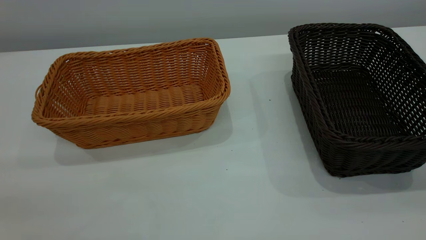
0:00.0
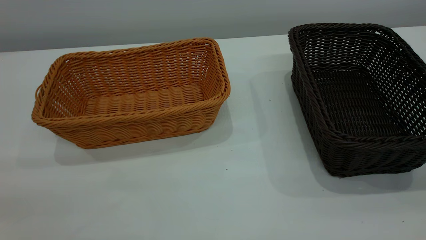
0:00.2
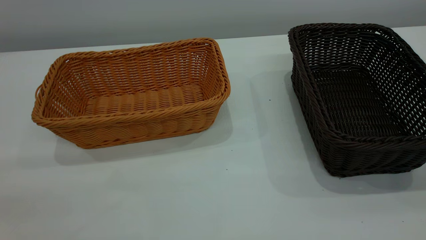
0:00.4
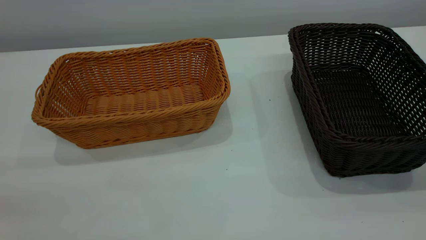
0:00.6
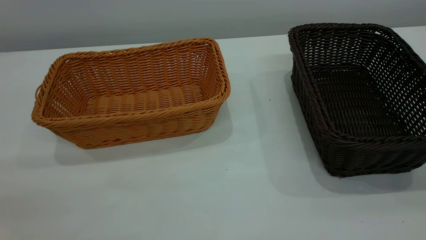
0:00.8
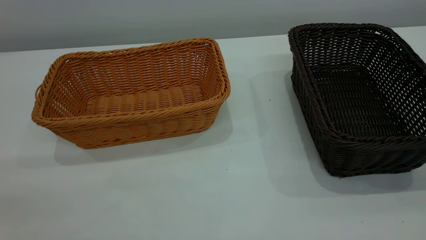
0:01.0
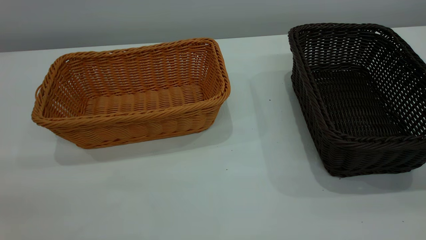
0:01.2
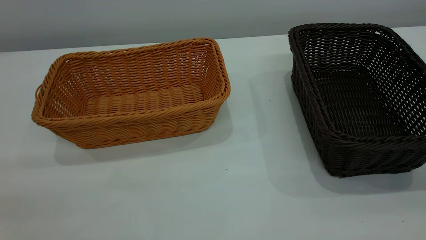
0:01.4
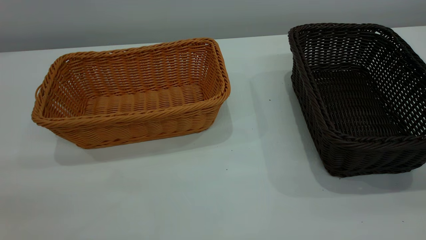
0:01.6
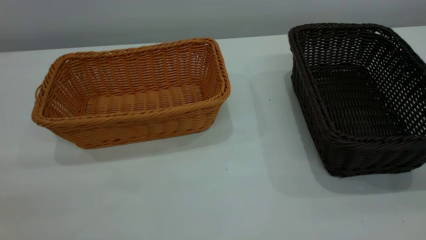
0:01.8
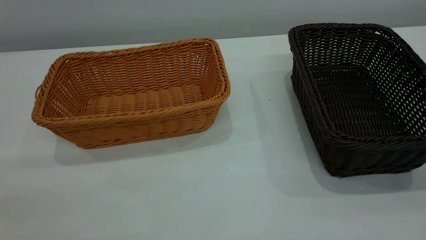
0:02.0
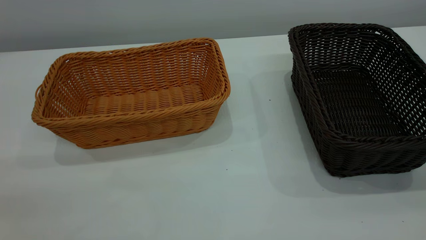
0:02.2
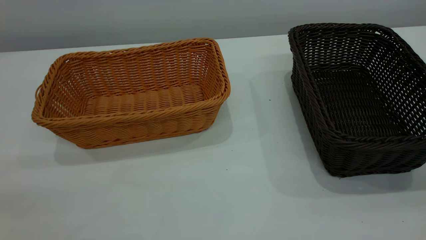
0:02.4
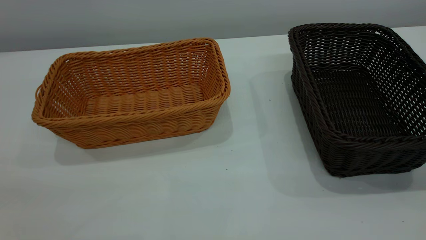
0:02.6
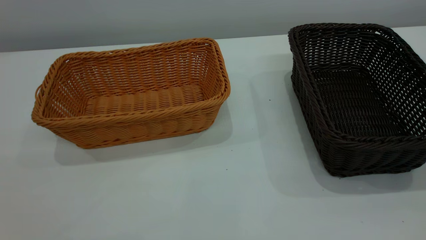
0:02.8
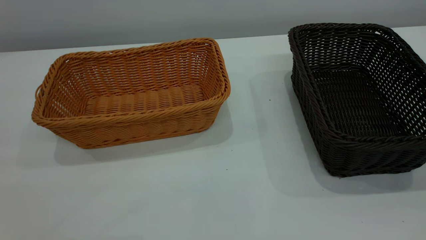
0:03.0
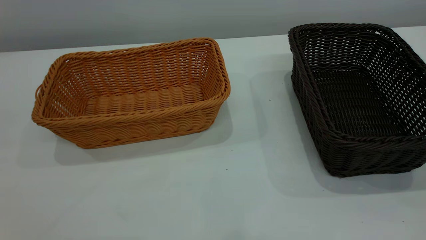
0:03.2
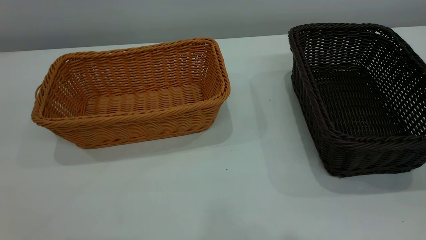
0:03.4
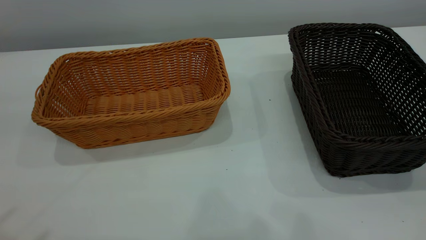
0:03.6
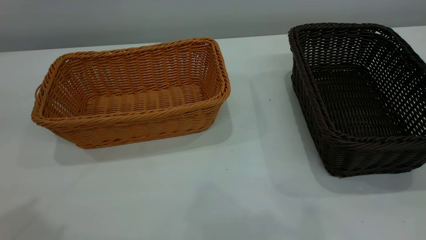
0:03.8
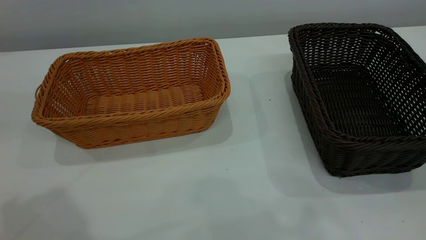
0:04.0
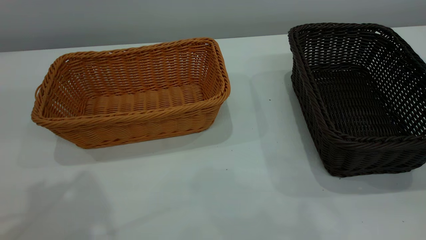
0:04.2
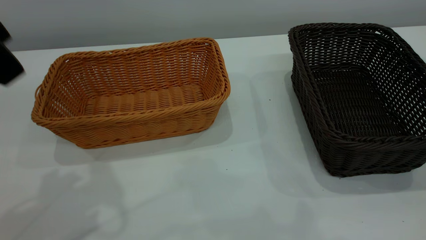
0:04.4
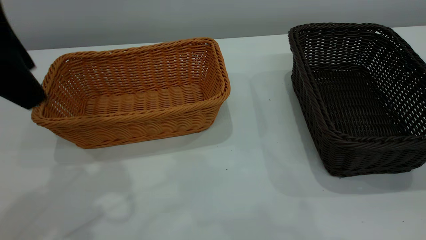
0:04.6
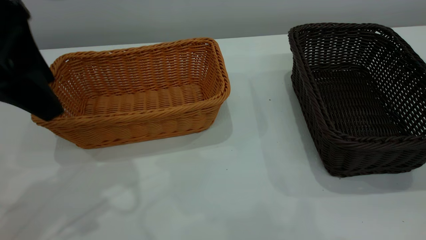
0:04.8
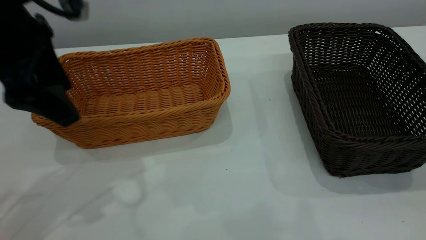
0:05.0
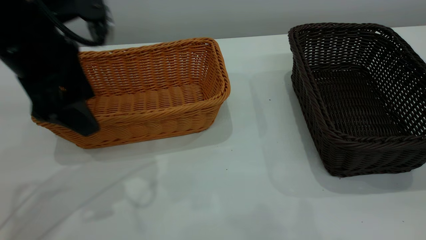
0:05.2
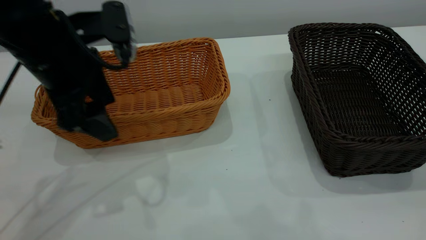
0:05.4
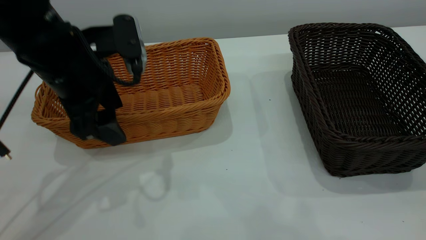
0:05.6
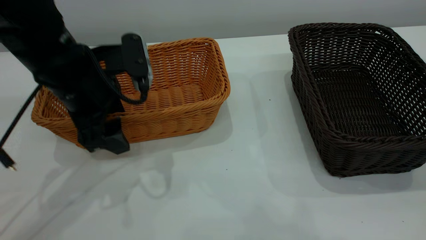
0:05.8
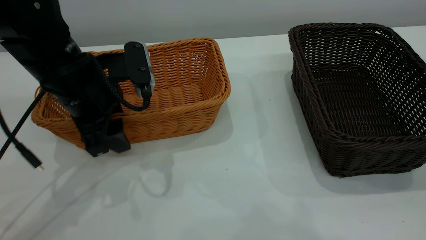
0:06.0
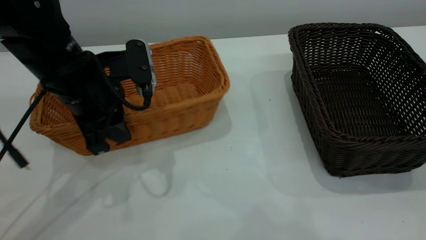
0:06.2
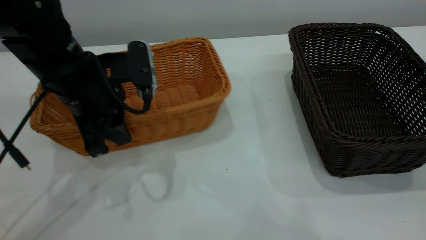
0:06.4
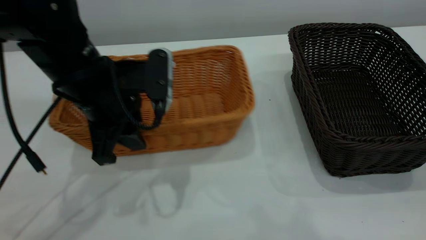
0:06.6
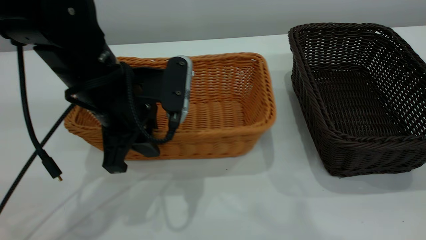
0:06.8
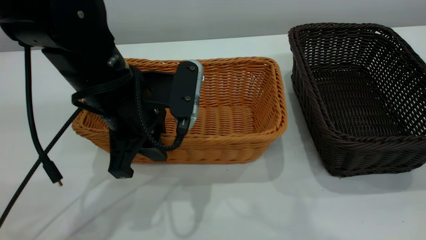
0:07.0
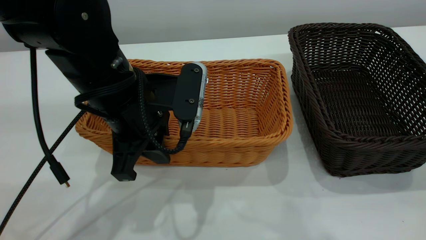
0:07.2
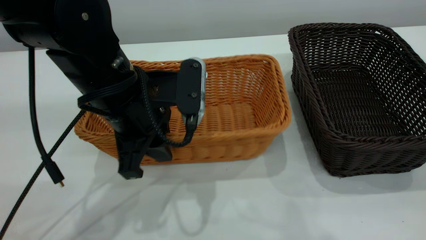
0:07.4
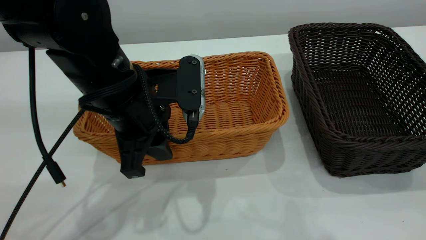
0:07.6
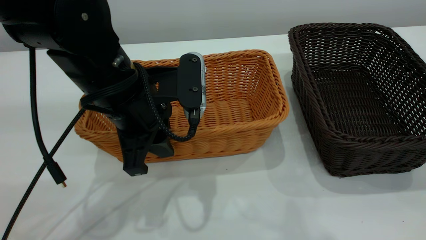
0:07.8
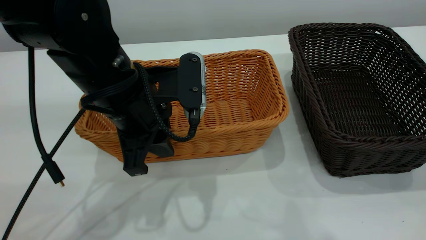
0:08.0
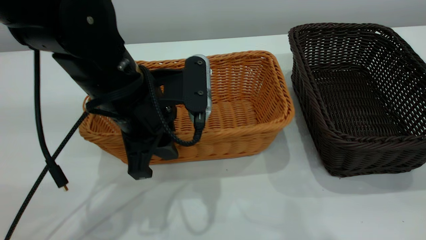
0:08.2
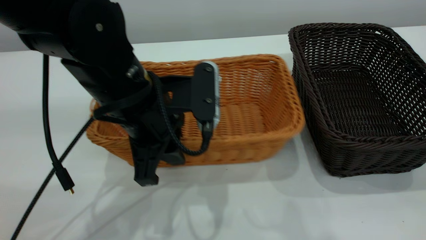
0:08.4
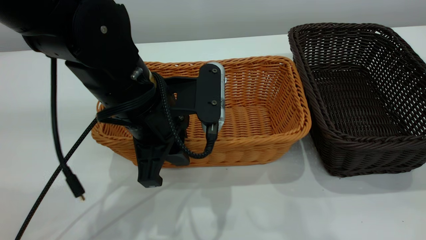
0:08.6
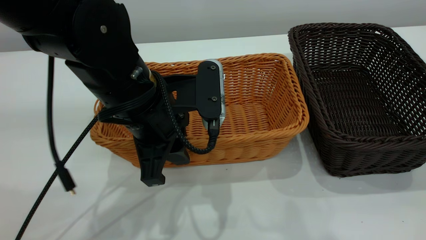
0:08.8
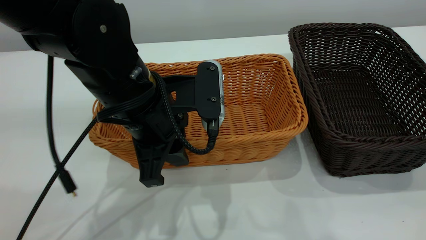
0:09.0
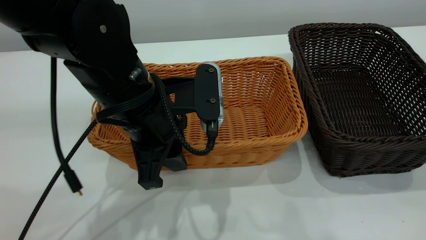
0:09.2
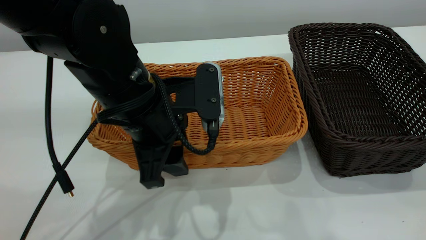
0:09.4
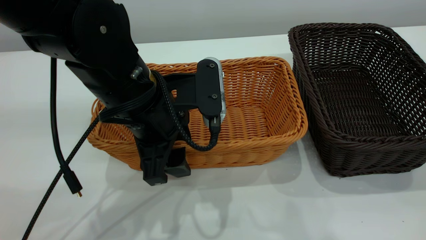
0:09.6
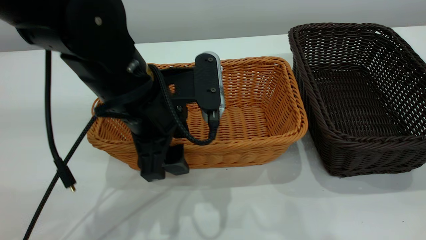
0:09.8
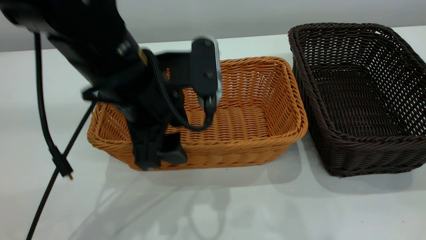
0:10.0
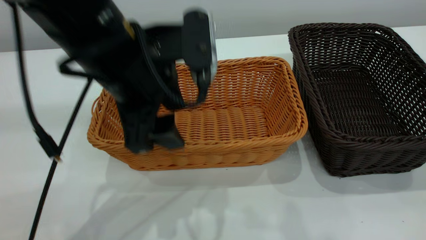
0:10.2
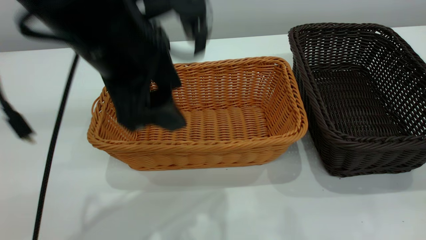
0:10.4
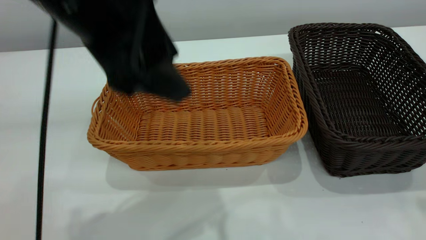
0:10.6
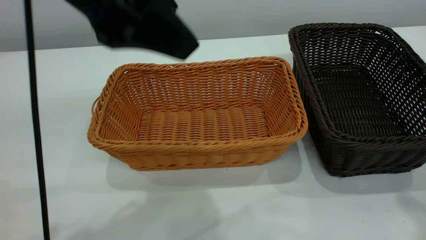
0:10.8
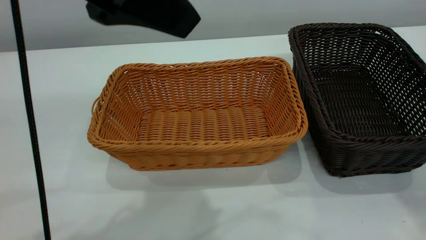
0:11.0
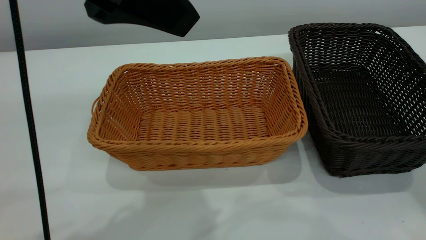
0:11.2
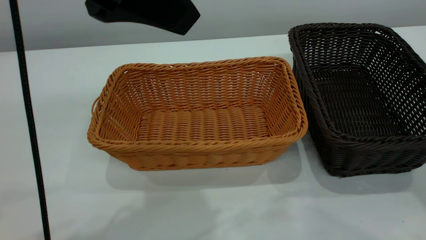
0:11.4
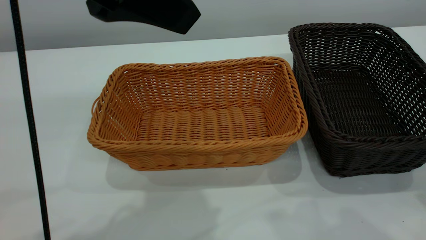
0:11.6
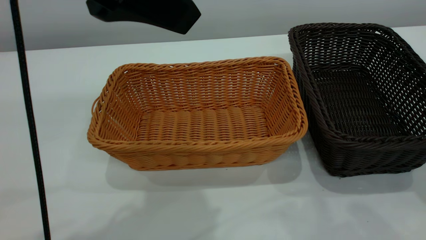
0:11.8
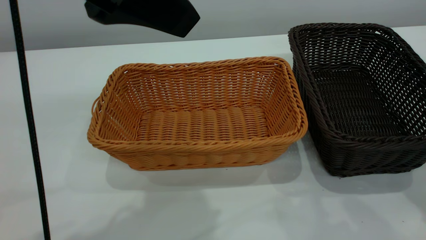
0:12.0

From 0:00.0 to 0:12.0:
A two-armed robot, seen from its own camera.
Task of the whole recording: the left gripper grasp the brown basket and place it in the center of the table, the right gripper grasp the black basket and place it inside the brown one.
Step, from 0:00.0 to 0:10.2: Place the light-colored basket in the center.
From 0:00.0 to 0:01.6: Neither gripper changes place.
From 0:03.0 to 0:04.4: The left gripper shifts roughly 25 cm forward and downward, and opens.
From 0:04.4 to 0:06.0: The left gripper goes approximately 20 cm downward and forward, and closes up.
From 0:06.0 to 0:07.6: The left gripper heads to the right, covering about 5 cm.
From 0:09.0 to 0:10.4: The left gripper shifts approximately 10 cm upward, and opens.
From 0:10.4 to 0:12.0: The left gripper is displaced upward by about 10 cm; the right gripper goes about 15 cm downward.

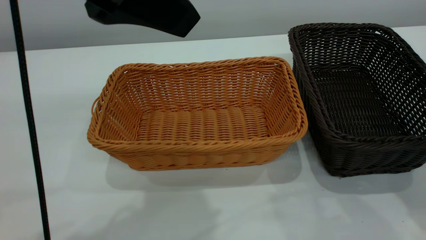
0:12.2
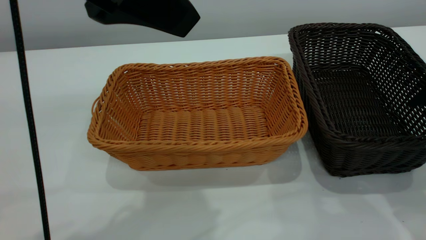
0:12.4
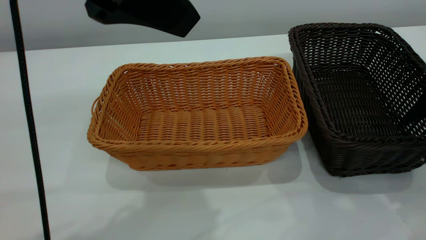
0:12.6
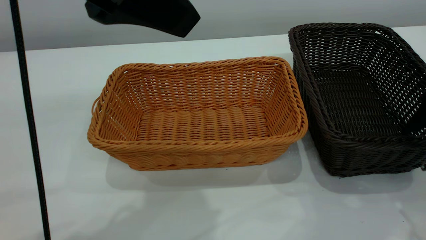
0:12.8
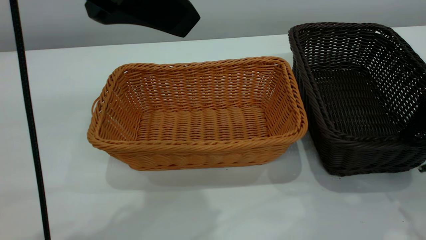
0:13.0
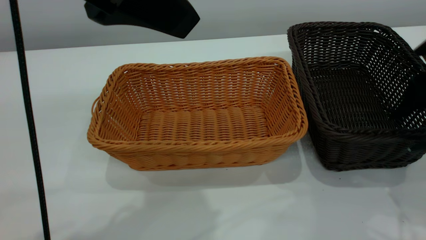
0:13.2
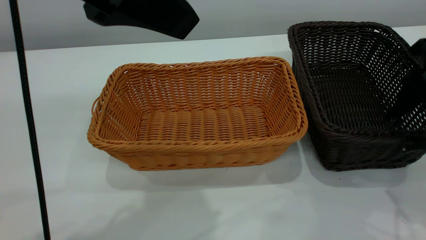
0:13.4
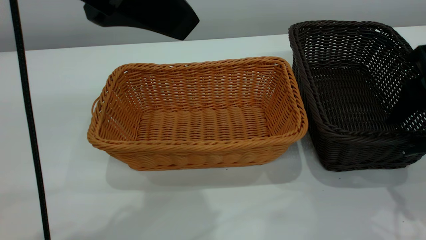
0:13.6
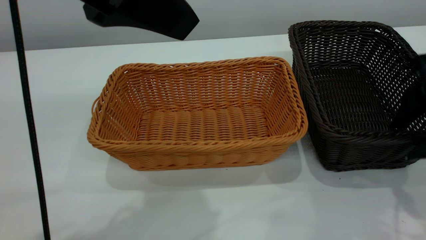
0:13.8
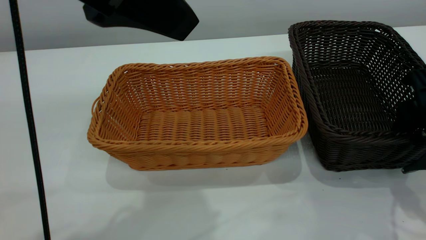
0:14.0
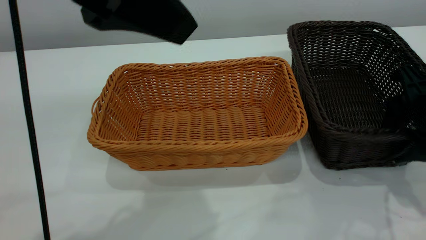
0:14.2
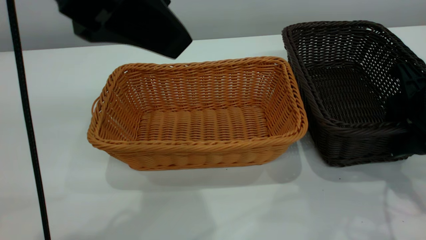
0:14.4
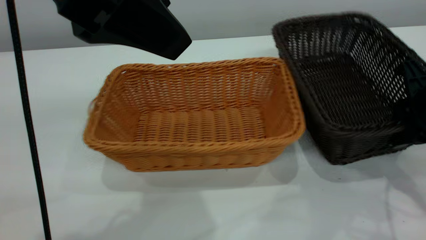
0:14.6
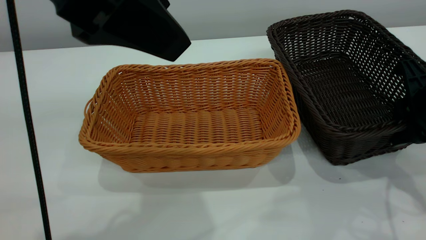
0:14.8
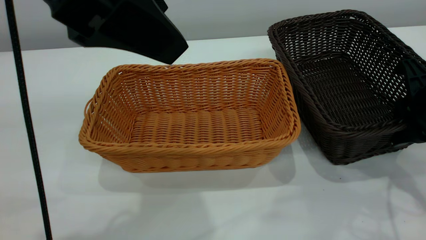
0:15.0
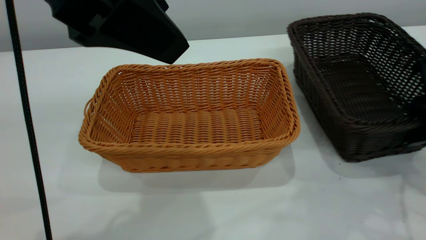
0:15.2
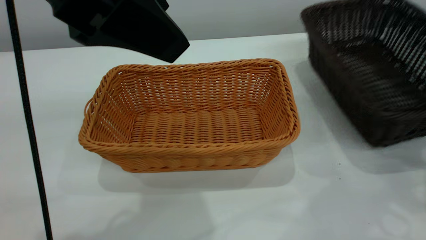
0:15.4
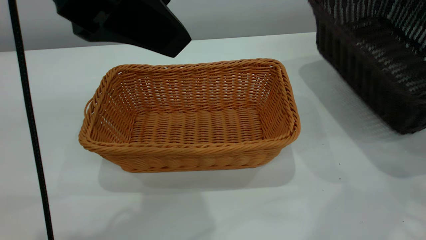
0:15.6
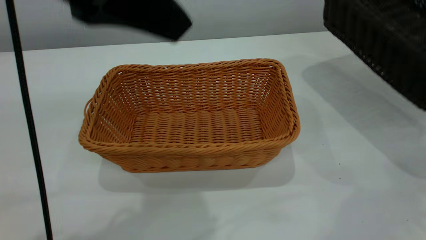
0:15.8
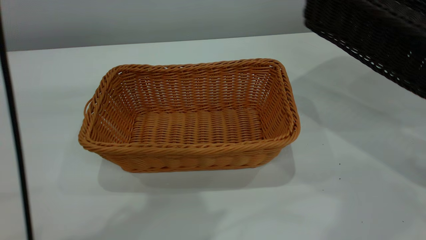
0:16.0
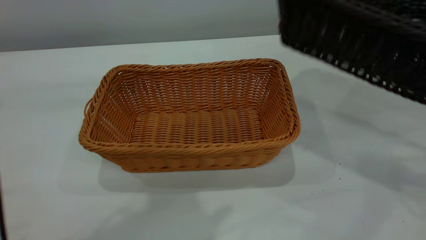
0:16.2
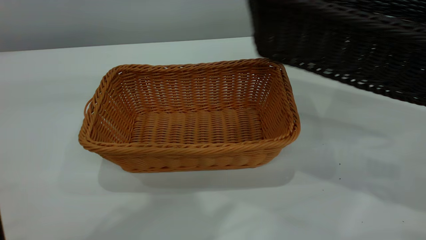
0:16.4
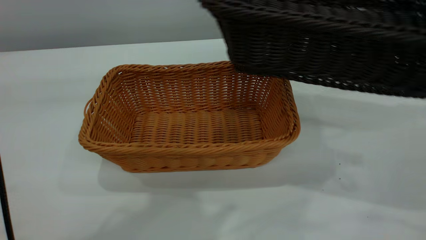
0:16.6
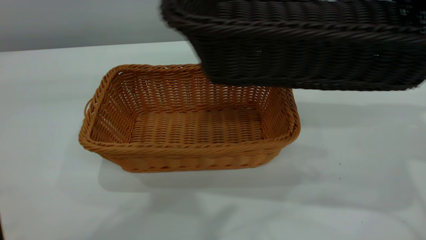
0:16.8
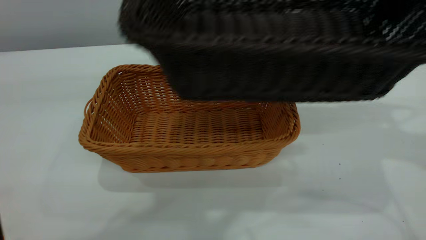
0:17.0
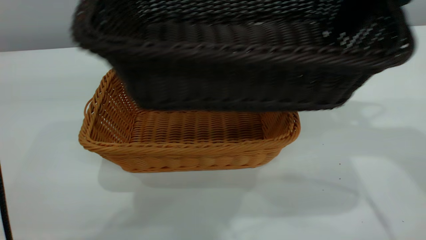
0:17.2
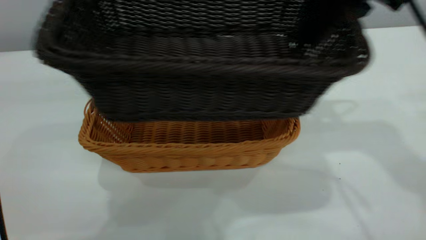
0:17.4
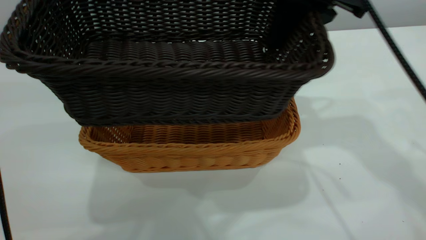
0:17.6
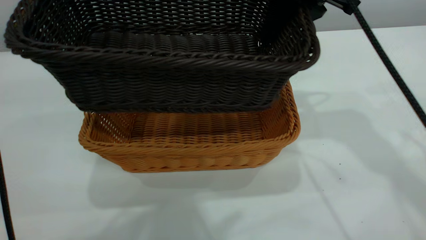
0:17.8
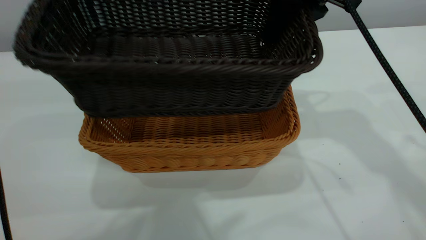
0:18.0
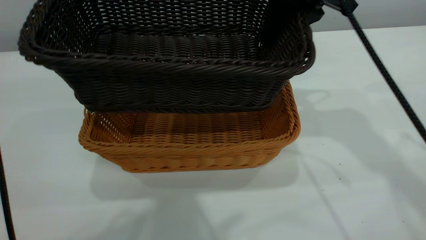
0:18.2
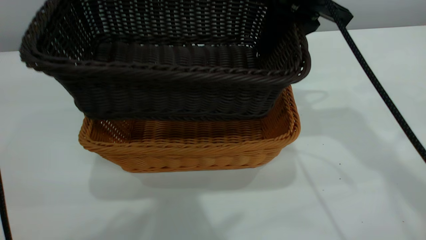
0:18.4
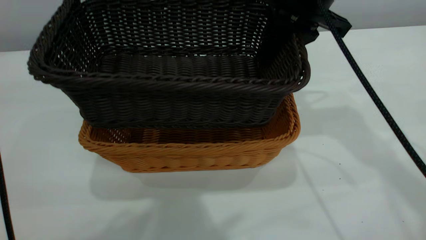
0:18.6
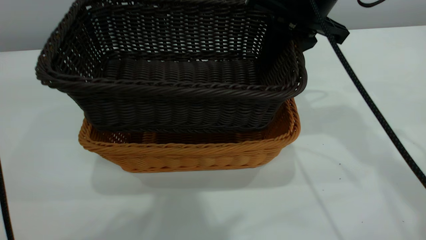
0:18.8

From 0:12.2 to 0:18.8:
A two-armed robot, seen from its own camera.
Task of the whole recording: the left gripper grasp the brown basket and place it in the center of the table, the right gripper grasp the black basket and place it inside the brown one.
Step, from 0:12.2 to 0:16.2: Pick up the light basket with the right gripper.
From 0:12.2 to 0:13.8: The right gripper moves downward and forward, roughly 10 cm.
From 0:13.8 to 0:15.4: The right gripper goes approximately 5 cm to the right, and closes up.
From 0:15.4 to 0:17.2: The right gripper is displaced upward, to the left and forward by approximately 20 cm; the left gripper travels upward by some 10 cm.
From 0:17.2 to 0:18.8: The right gripper moves downward, to the left and forward, roughly 10 cm.
